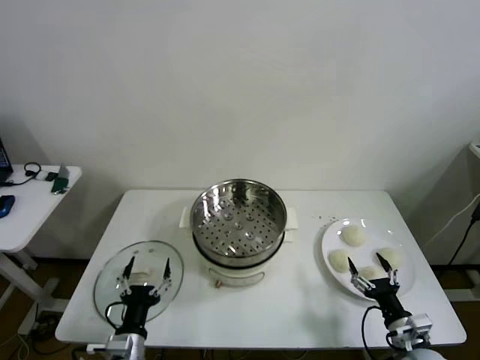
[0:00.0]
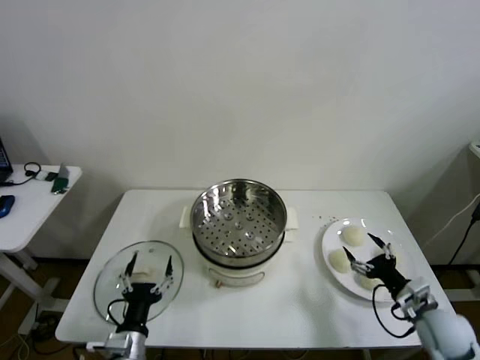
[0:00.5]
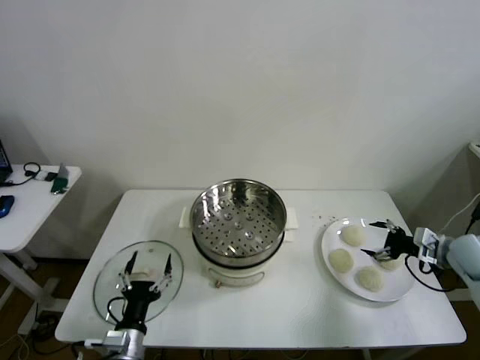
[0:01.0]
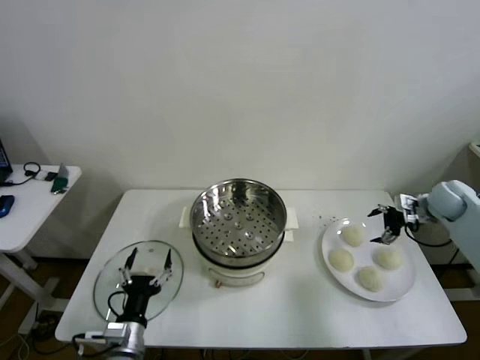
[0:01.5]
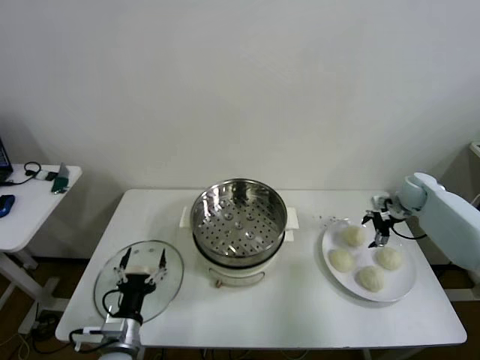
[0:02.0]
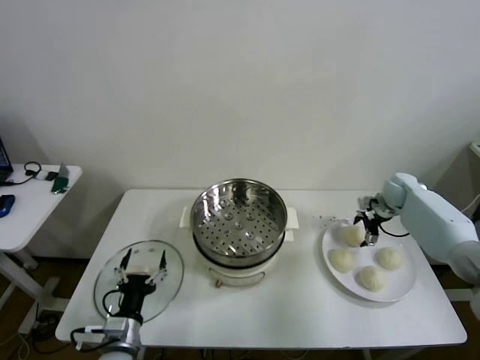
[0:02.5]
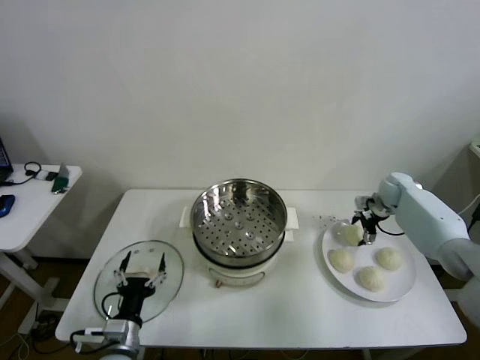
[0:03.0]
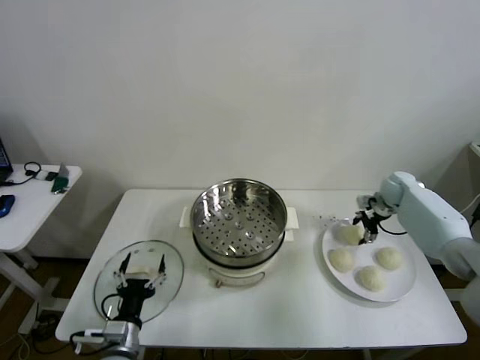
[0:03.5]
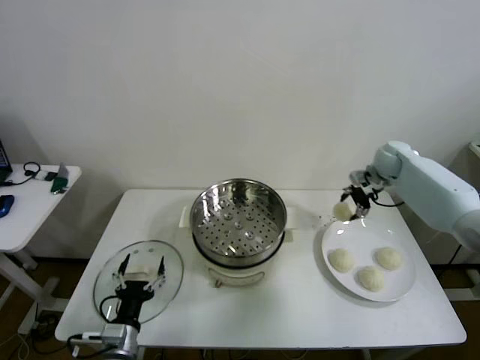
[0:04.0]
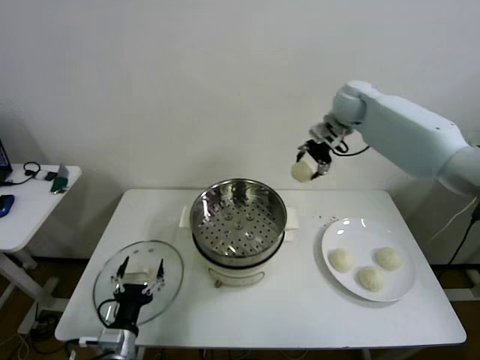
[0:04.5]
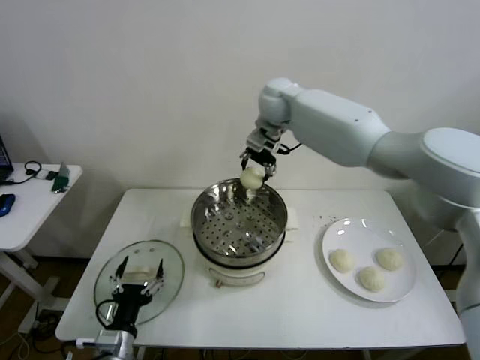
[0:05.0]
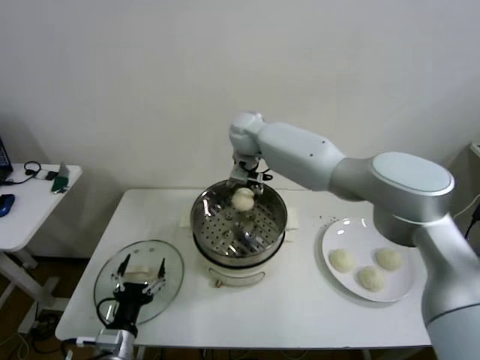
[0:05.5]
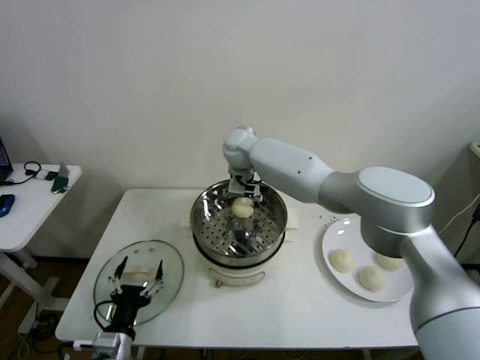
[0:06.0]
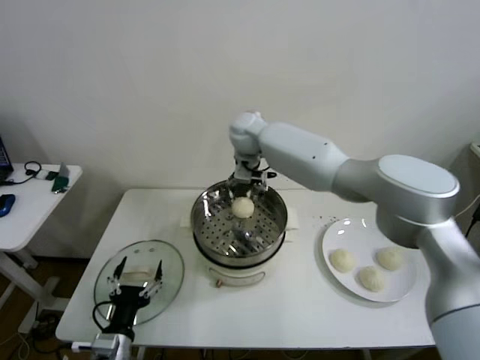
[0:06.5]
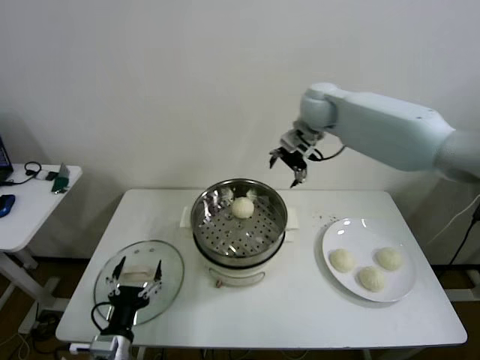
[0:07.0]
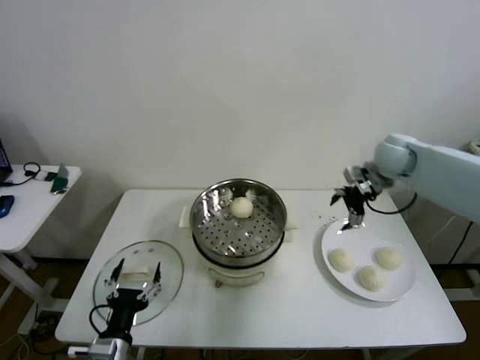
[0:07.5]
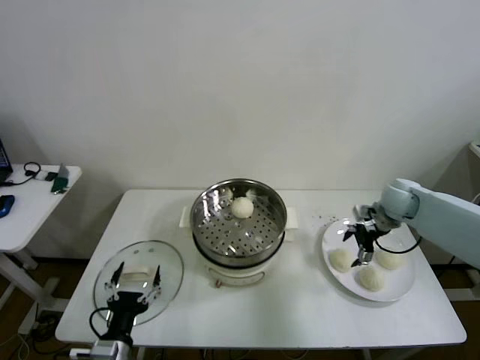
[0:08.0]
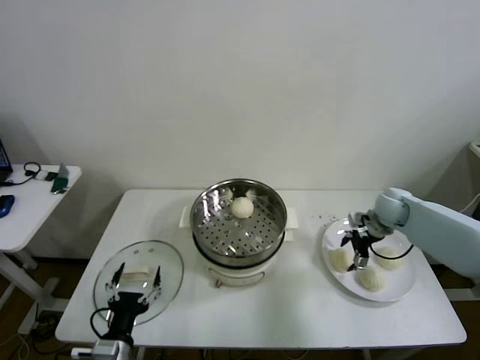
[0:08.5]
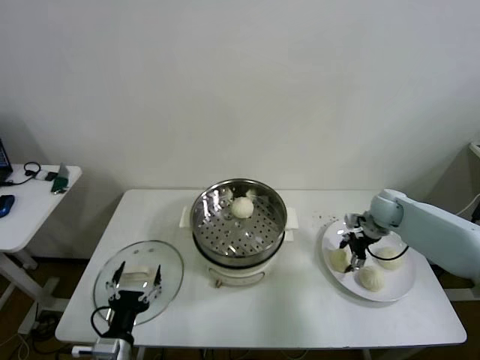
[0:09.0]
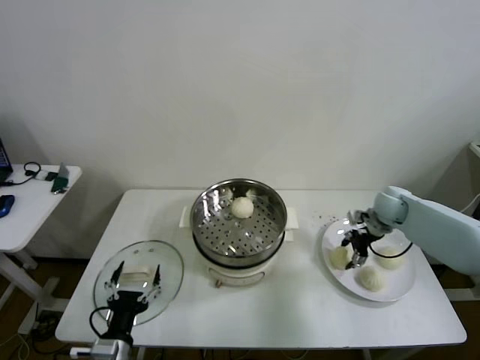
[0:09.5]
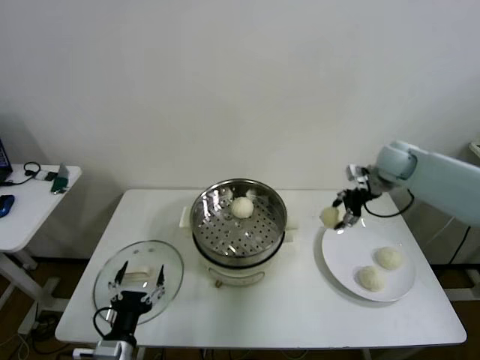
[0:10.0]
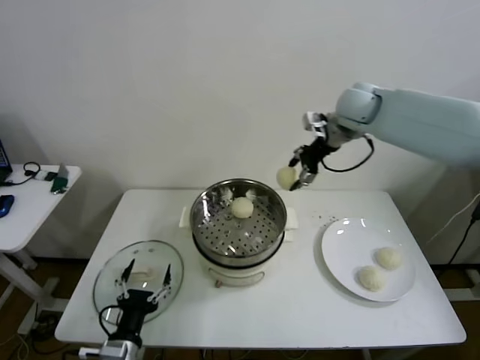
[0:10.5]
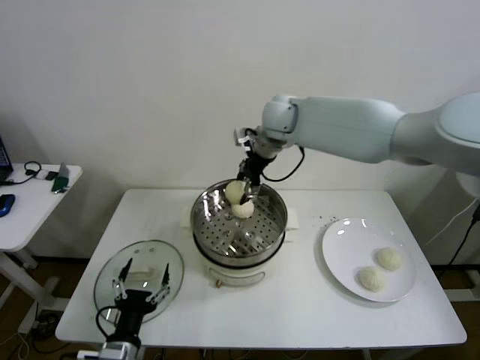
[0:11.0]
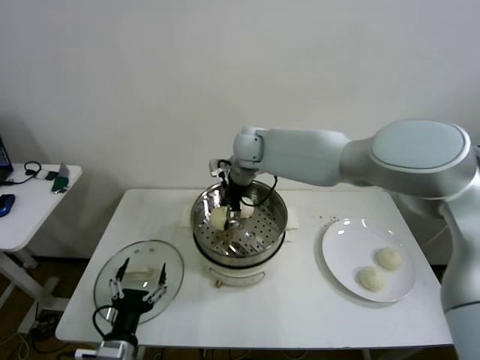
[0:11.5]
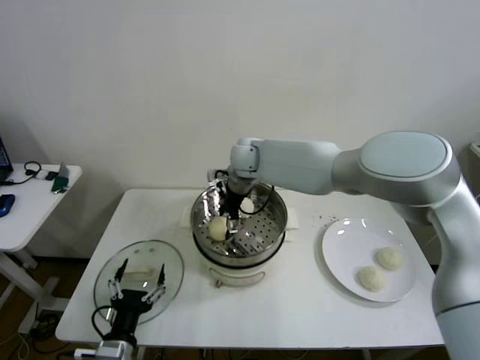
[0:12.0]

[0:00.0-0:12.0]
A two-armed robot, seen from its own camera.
Step, 0:00.0 to 0:03.0: Grasp the baozi in the plate with right gripper.
Step, 0:03.5 to 0:06.0: Place the baozi on the steamer with right gripper.
Step, 0:06.5 to 0:09.0: Grasp the baozi in the plate with right gripper.
0:02.0 to 0:04.0: The right gripper is displaced upward and to the left by about 20 cm, and closes up.
0:04.0 to 0:06.0: The right gripper goes about 35 cm to the left, and opens its fingers.
0:06.0 to 0:08.0: The right gripper moves to the right, approximately 40 cm.
0:08.0 to 0:10.0: The right gripper goes about 15 cm upward, and closes up.
0:10.0 to 0:12.0: The right gripper travels to the left by about 35 cm, and opens.

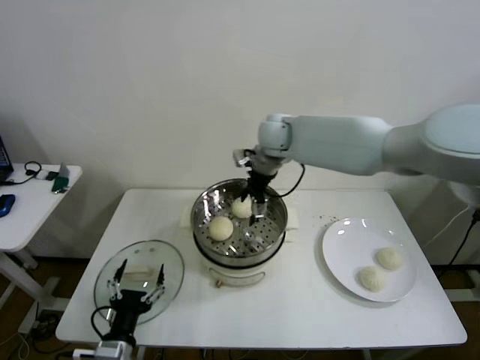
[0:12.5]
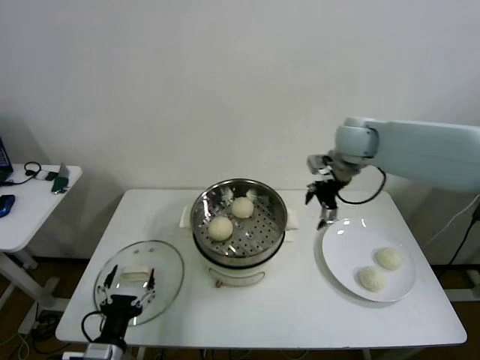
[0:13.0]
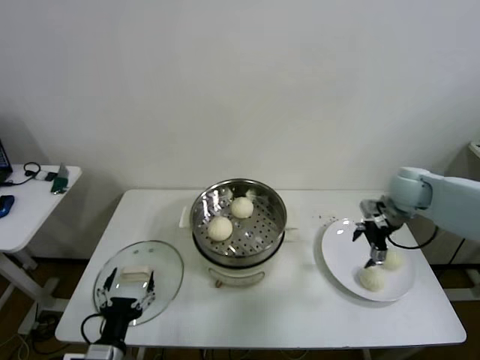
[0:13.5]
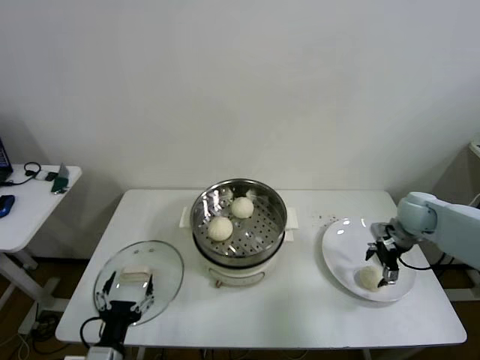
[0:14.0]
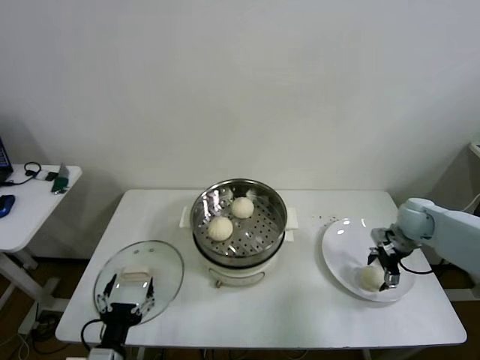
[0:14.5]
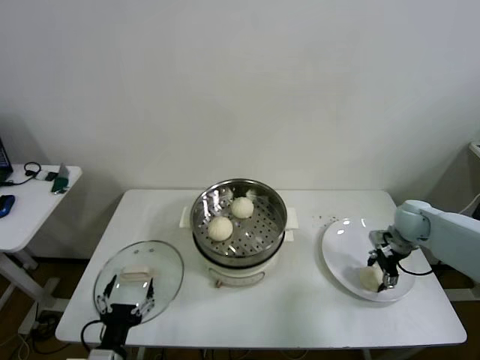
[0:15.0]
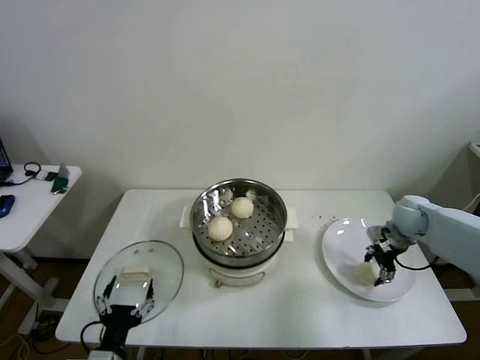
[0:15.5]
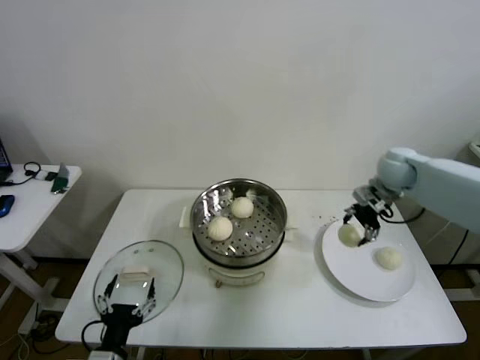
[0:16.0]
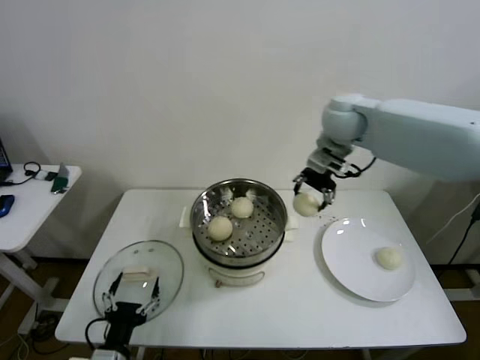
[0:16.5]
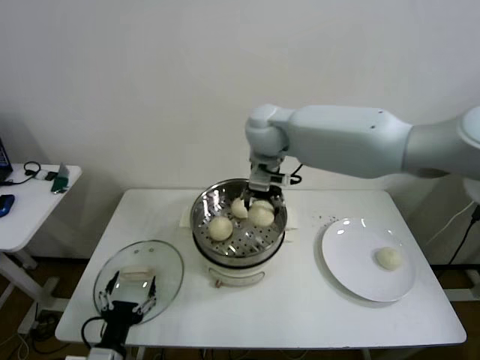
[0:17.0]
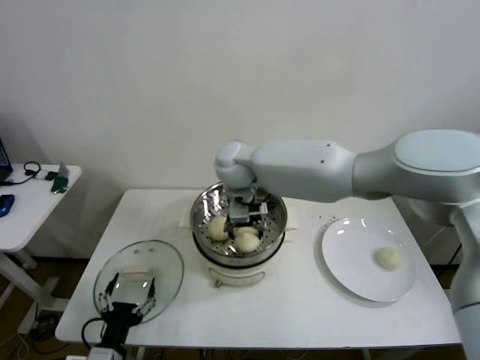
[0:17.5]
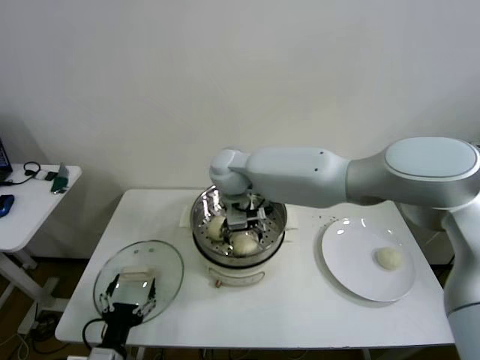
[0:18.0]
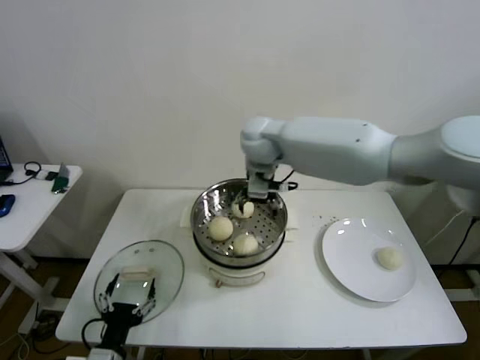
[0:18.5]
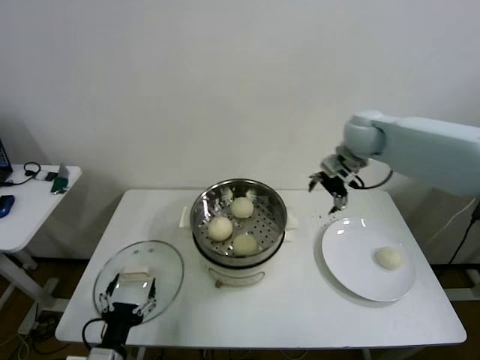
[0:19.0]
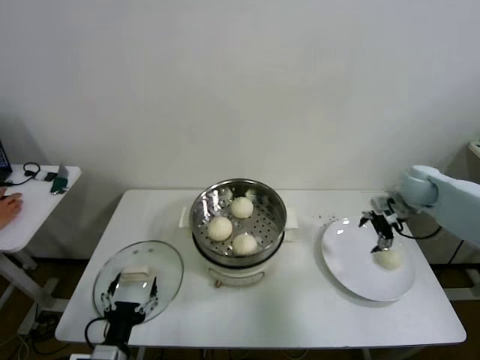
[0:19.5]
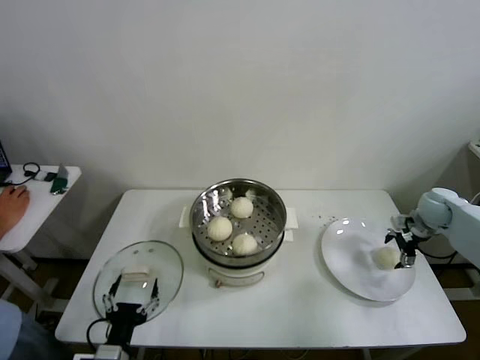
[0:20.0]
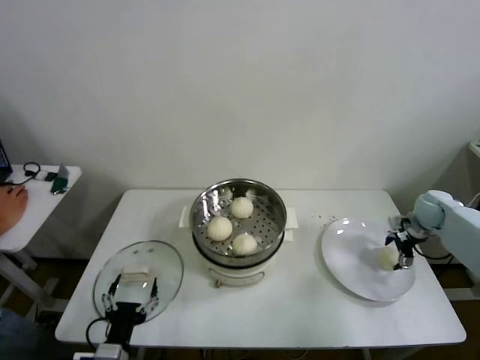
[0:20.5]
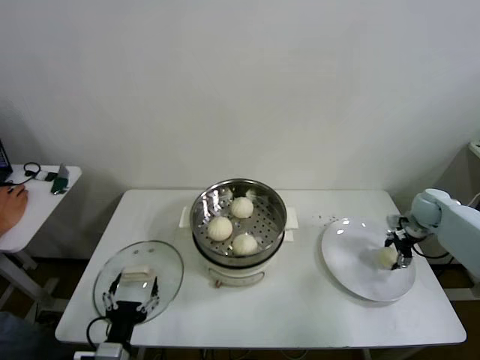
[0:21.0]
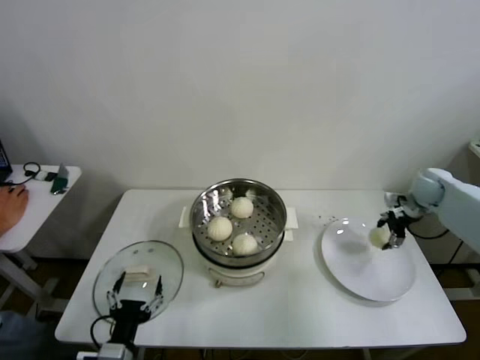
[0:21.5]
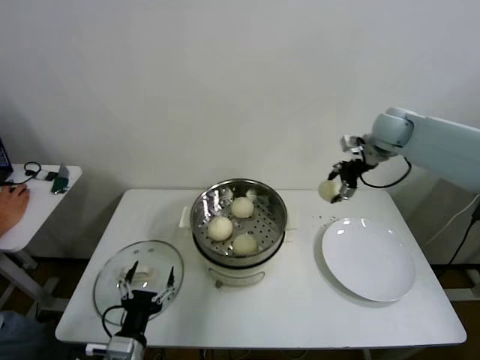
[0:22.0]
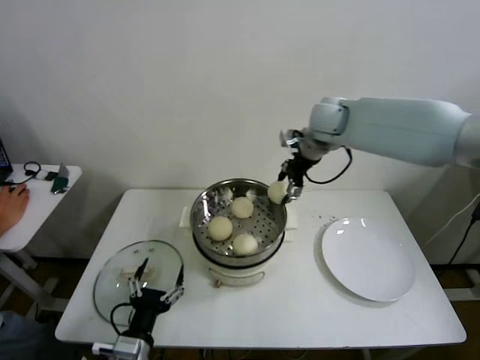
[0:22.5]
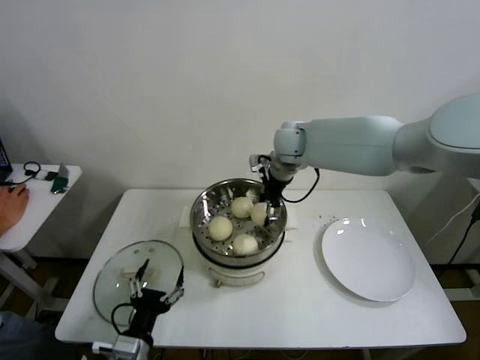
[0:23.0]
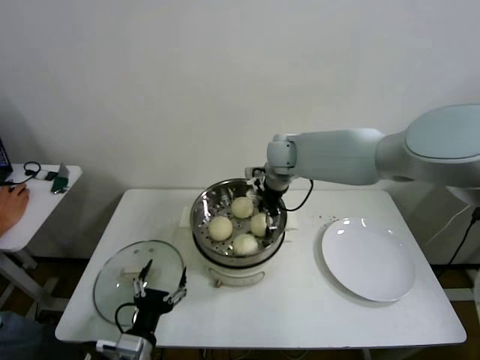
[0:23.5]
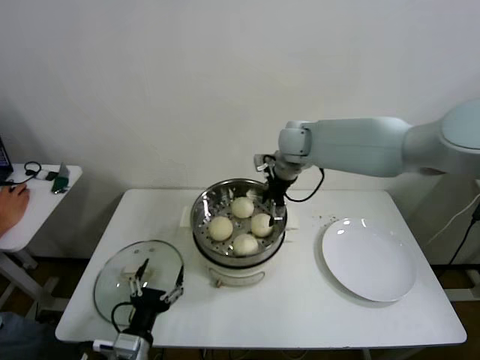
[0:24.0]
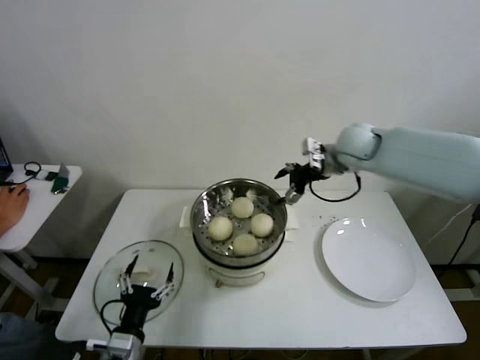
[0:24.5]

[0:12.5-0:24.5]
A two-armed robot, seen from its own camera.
Step, 0:12.5 to 0:15.0: Grasp the baozi in the plate with right gripper.
Step, 0:15.5 to 0:18.0: Place the baozi on the steamer with right gripper.
Step, 0:18.5 to 0:21.0: Grasp the baozi in the plate with right gripper.
Step, 0:21.5 to 0:23.5: Place the baozi on the steamer with right gripper.
0:12.5 to 0:14.5: The right gripper moves to the right and downward, roughly 35 cm.
0:14.5 to 0:16.5: The right gripper heads to the left and upward, covering some 35 cm, and closes.
0:16.5 to 0:18.5: The right gripper heads to the left, covering approximately 10 cm, and opens up.
0:18.5 to 0:20.5: The right gripper is displaced to the right and downward by some 50 cm.
0:20.5 to 0:22.5: The right gripper goes approximately 40 cm to the left and upward, and closes up.
0:22.5 to 0:24.5: The right gripper travels to the right and downward by some 10 cm, and opens.

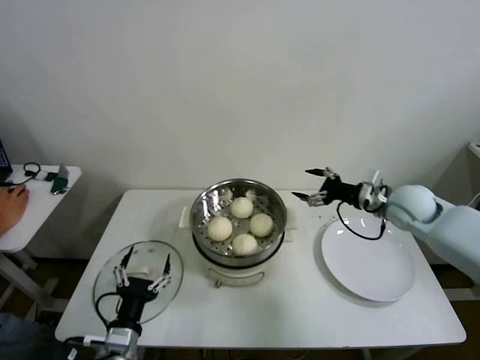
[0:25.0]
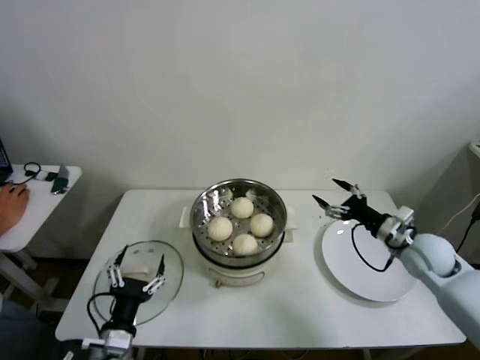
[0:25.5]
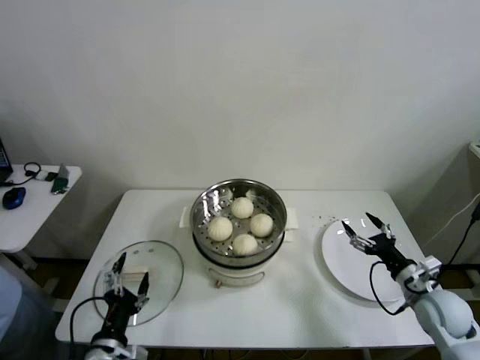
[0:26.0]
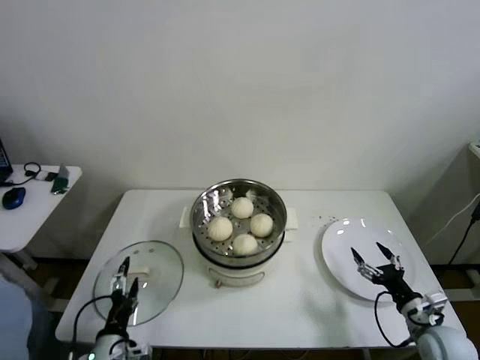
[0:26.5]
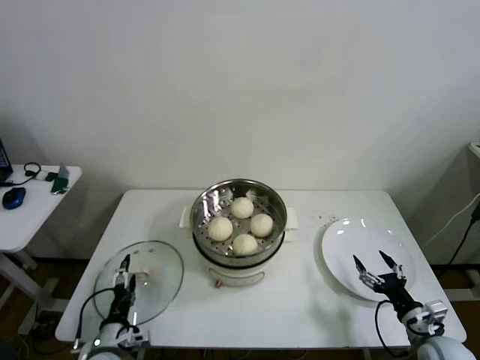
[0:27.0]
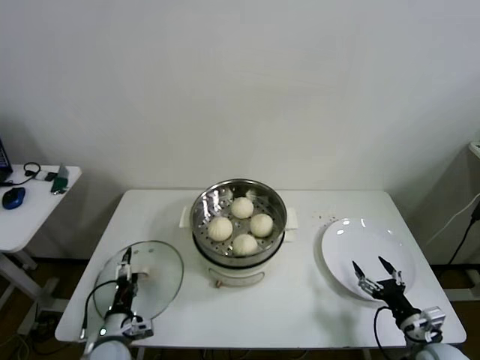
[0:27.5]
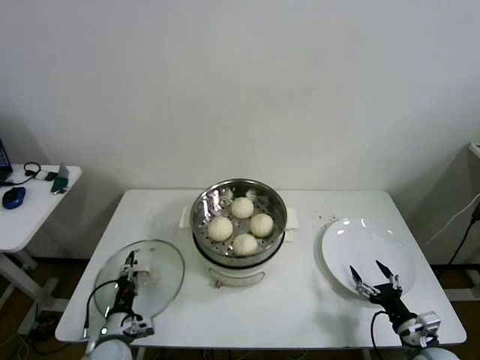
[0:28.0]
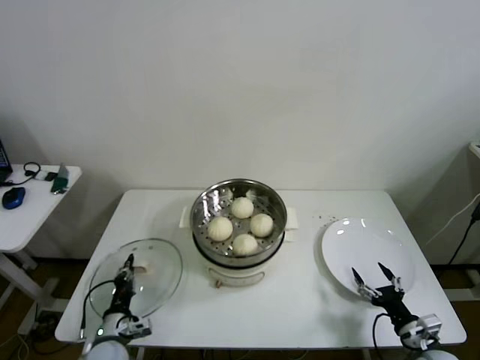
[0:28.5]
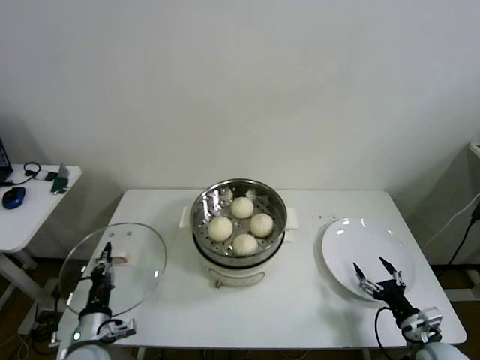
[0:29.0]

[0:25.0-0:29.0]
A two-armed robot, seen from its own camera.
Step, 0:25.0 to 0:28.0: Grasp the pot lid with left gripper.
0:25.0 to 0:27.0: The right gripper shifts about 30 cm backward and downward, while the left gripper moves downward and to the left, some 10 cm.
0:27.0 to 0:29.0: The left gripper closes its fingers.
